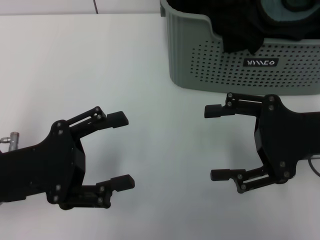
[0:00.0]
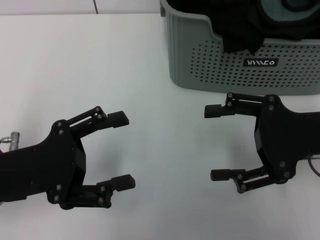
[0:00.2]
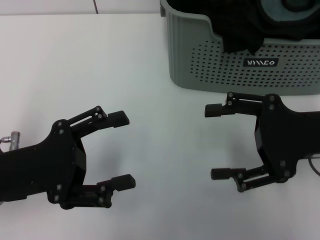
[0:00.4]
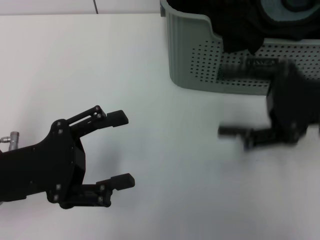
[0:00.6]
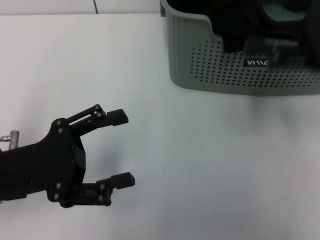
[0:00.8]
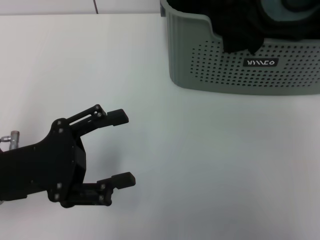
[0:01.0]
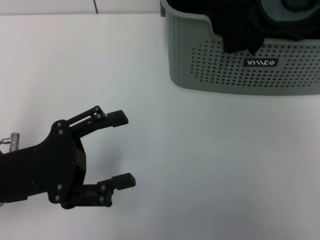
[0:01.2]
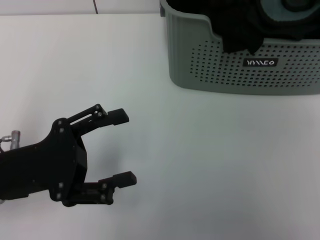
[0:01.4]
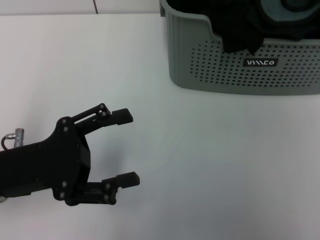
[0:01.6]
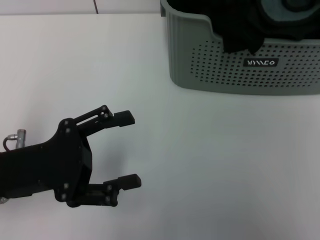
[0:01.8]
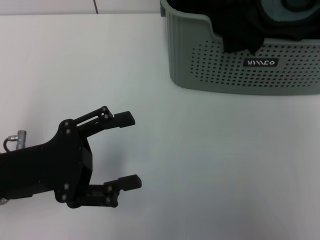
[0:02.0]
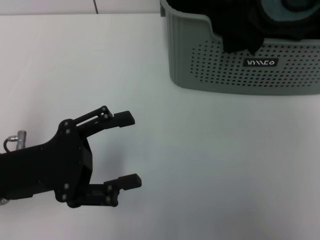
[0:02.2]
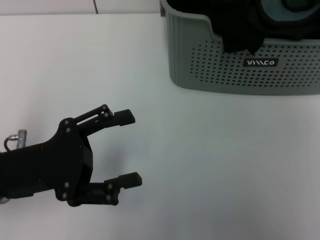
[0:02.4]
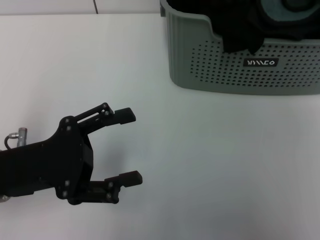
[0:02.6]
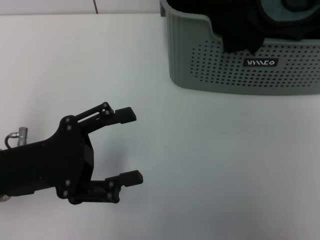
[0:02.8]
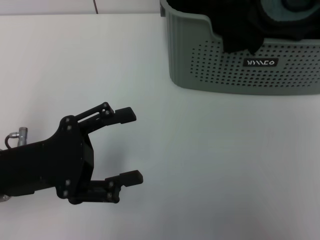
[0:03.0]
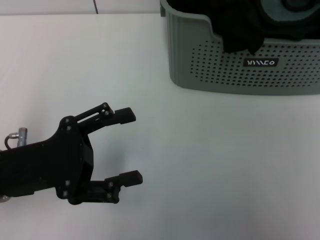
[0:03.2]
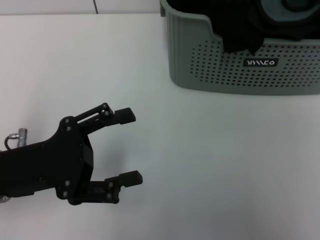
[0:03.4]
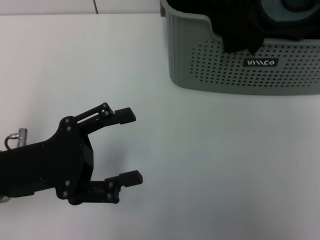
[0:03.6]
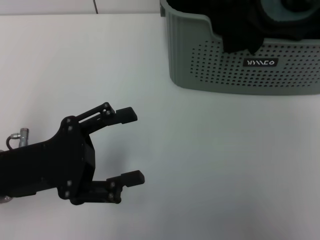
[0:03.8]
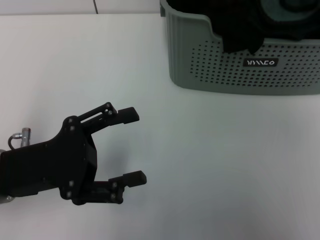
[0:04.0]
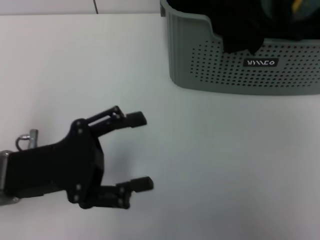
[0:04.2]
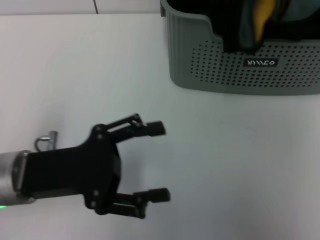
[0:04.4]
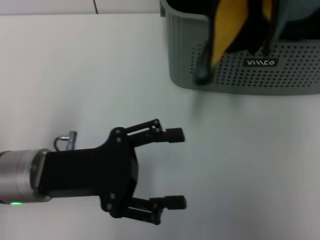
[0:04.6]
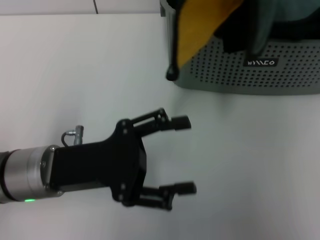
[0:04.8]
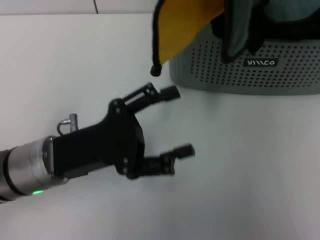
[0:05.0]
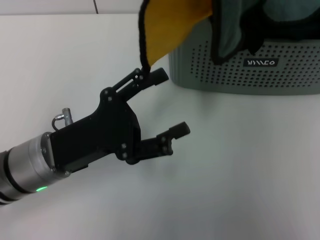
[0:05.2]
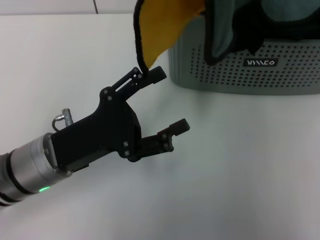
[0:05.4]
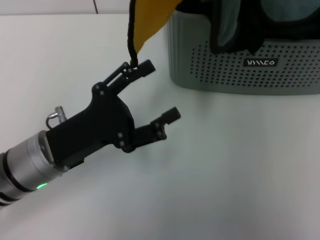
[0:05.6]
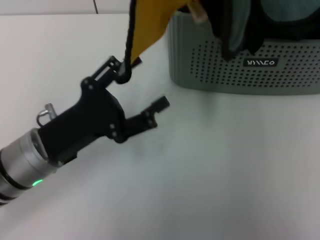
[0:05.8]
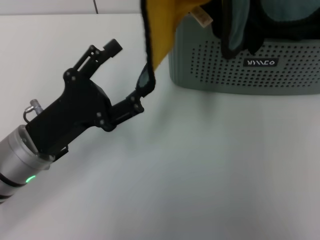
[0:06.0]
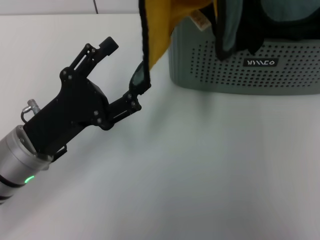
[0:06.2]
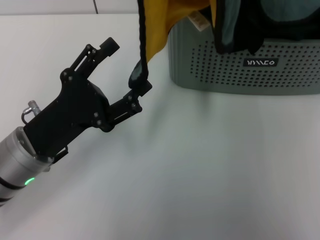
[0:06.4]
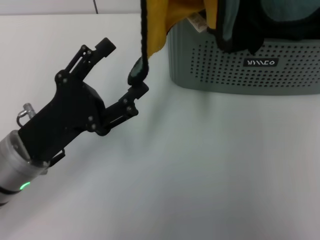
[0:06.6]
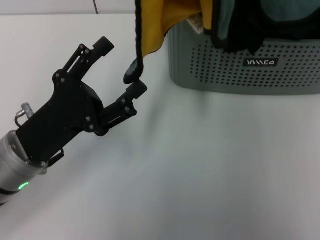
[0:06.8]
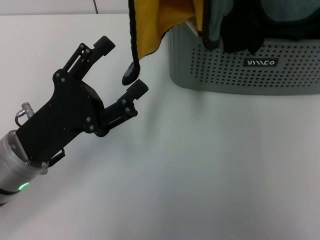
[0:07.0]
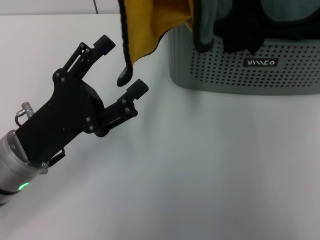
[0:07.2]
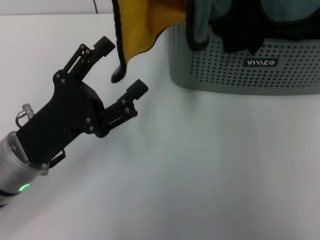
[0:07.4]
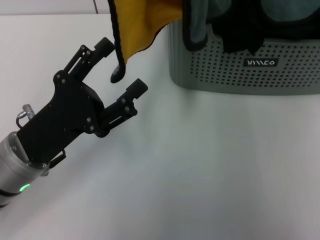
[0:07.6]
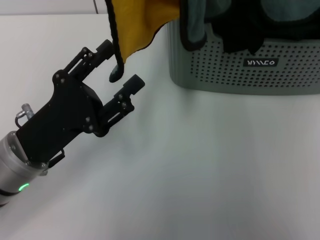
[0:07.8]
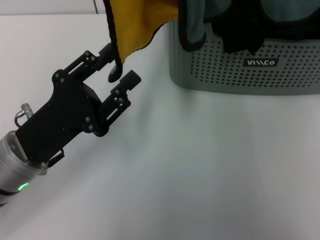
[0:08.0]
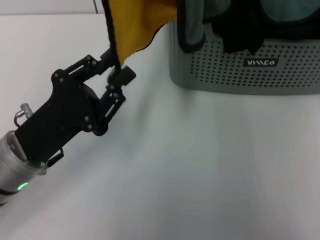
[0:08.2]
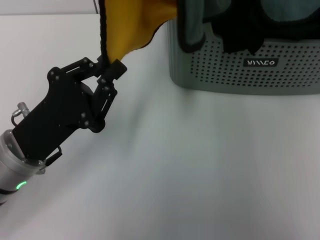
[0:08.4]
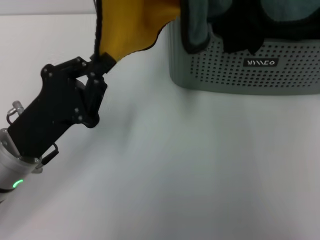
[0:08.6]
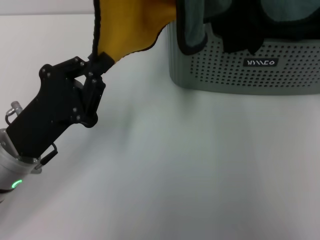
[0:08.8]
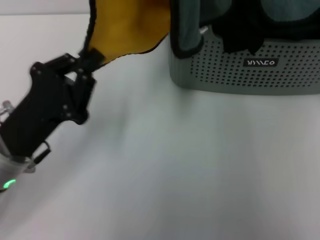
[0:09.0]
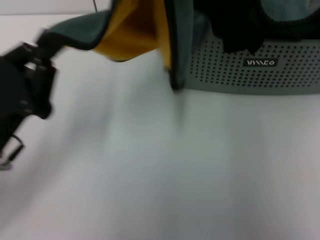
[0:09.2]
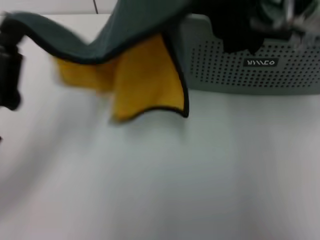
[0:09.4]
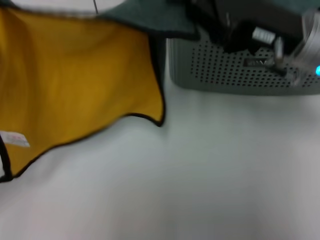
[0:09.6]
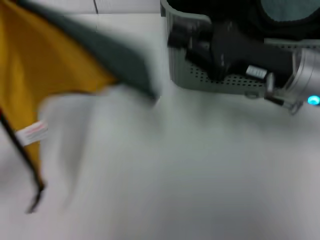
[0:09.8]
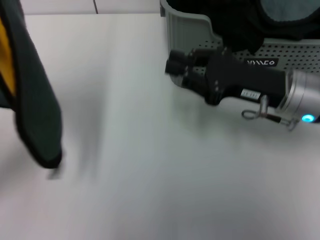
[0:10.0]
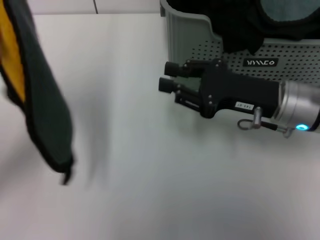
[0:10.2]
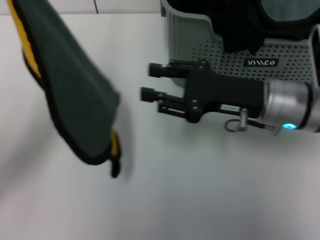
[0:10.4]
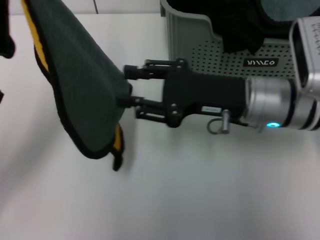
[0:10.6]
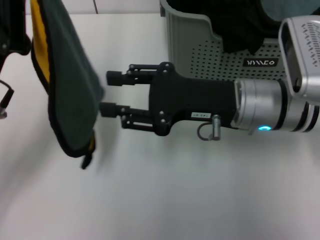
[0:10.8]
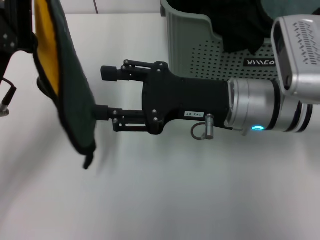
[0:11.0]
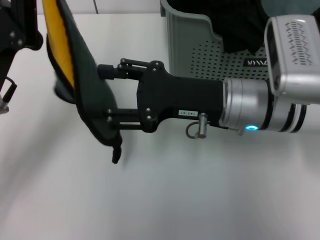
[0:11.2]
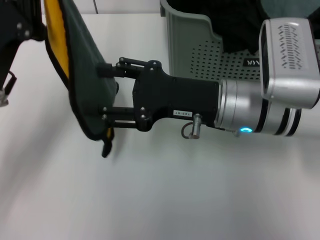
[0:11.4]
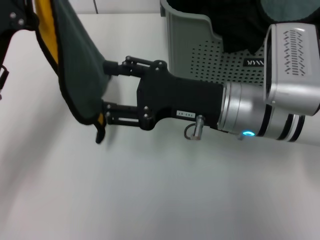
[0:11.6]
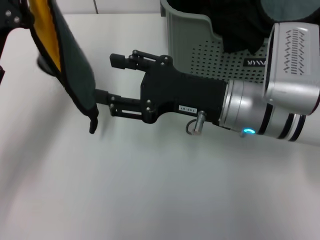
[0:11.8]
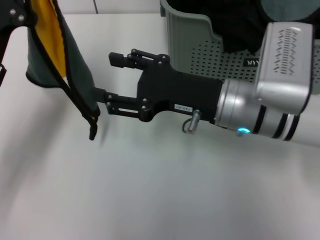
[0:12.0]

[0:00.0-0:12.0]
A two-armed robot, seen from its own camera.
Task of the whole recording: pick up the towel from the storage box and lay it flat on the table.
Step, 0:00.0 to 0:04.0: Pick up a towel with the right gripper.
Step, 0:04.2 to 0:08.4: Spread the towel flat with the right gripper.
0:00.0 to 0:01.6: The right gripper is displaced to the right and upward by some 20 cm.
0:01.6 to 0:03.0: The right gripper shifts about 5 cm forward, and closes up.
0:03.0 to 0:04.4: The right gripper heads to the left, upward and backward, covering roughly 15 cm, and closes.
0:04.4 to 0:06.0: The right gripper travels to the left by approximately 10 cm.
0:06.0 to 0:07.6: The grippers make only small movements.
0:07.6 to 0:09.0: The left gripper closes its fingers.
0:09.0 to 0:10.4: The left gripper goes roughly 5 cm upward. The right gripper heads downward, covering some 15 cm.
0:10.4 to 0:12.0: The right gripper heads to the left, covering approximately 5 cm, and opens.

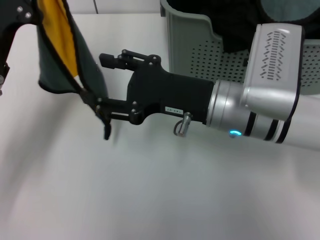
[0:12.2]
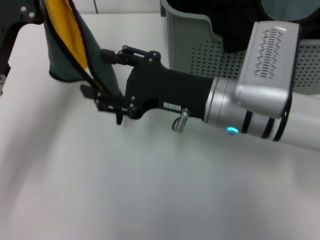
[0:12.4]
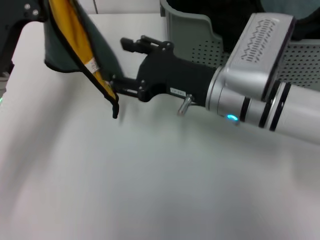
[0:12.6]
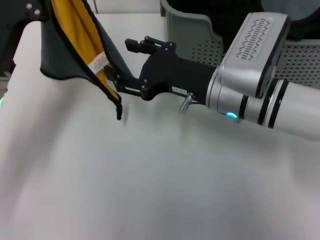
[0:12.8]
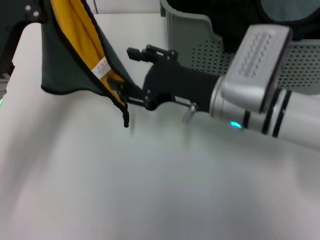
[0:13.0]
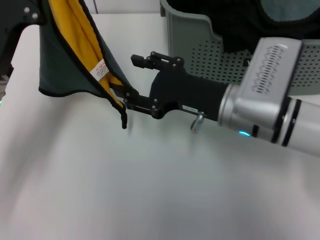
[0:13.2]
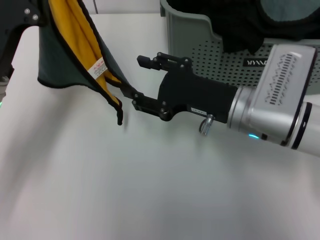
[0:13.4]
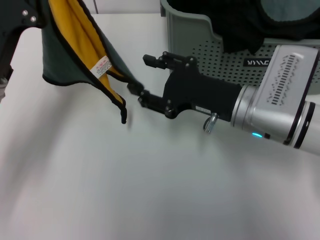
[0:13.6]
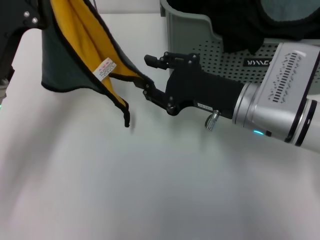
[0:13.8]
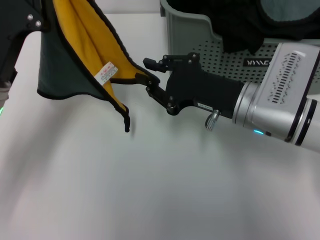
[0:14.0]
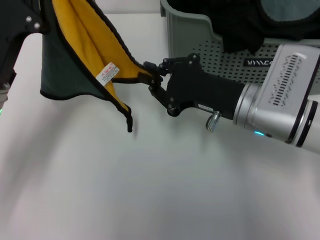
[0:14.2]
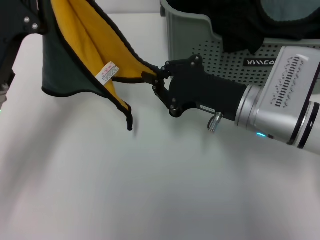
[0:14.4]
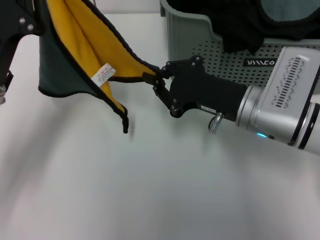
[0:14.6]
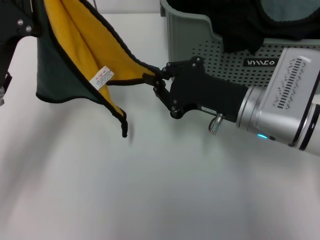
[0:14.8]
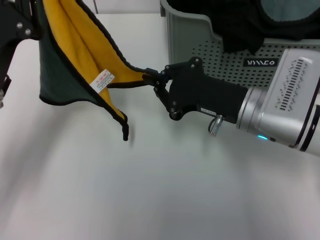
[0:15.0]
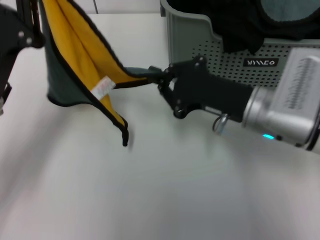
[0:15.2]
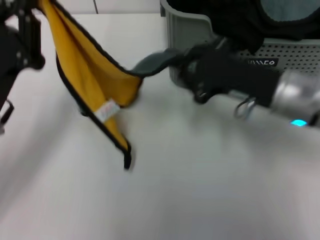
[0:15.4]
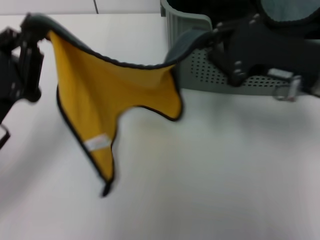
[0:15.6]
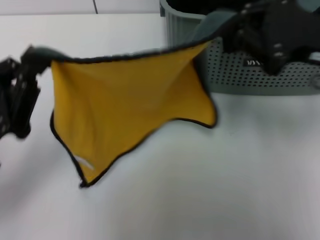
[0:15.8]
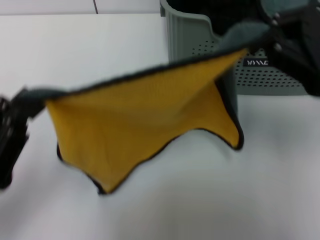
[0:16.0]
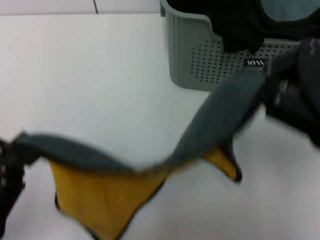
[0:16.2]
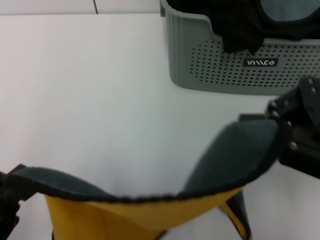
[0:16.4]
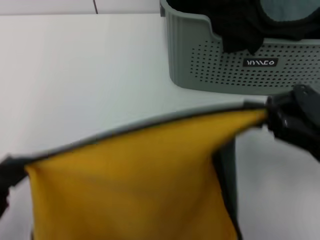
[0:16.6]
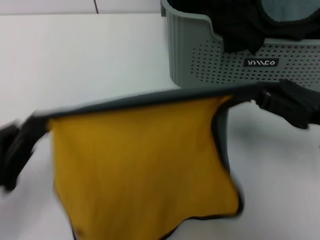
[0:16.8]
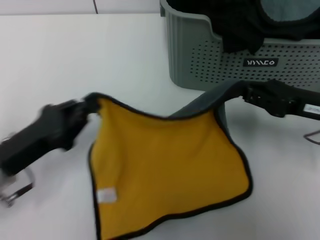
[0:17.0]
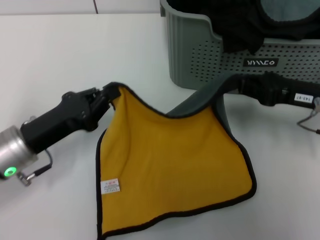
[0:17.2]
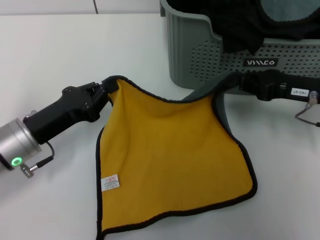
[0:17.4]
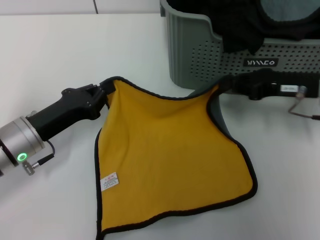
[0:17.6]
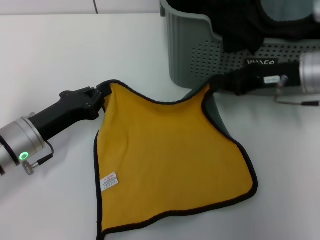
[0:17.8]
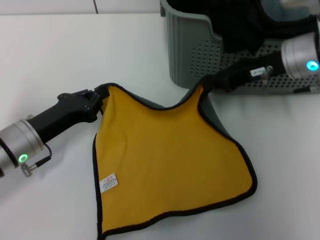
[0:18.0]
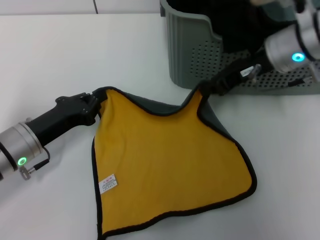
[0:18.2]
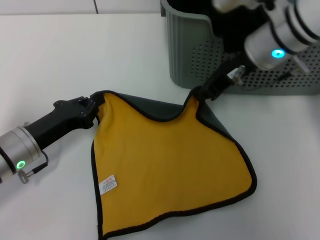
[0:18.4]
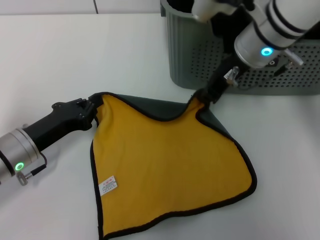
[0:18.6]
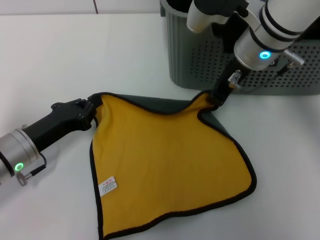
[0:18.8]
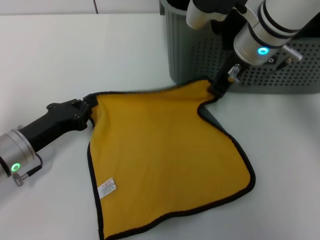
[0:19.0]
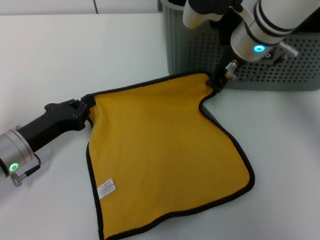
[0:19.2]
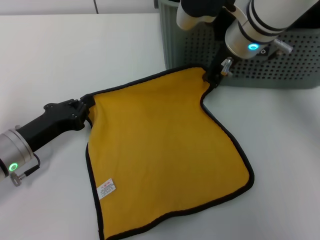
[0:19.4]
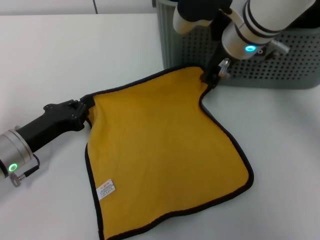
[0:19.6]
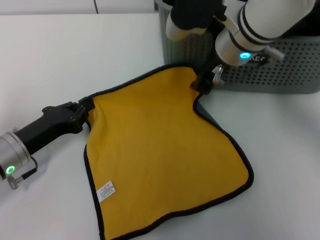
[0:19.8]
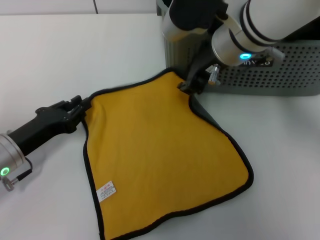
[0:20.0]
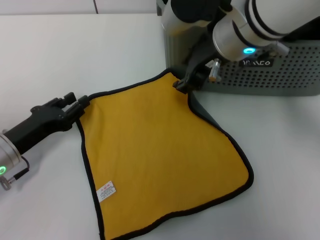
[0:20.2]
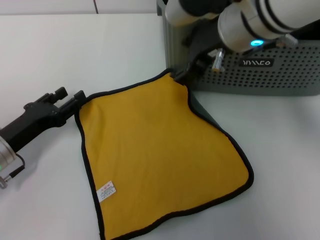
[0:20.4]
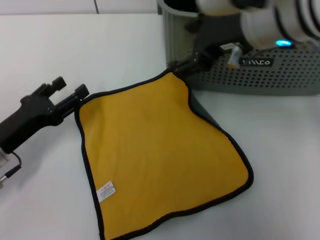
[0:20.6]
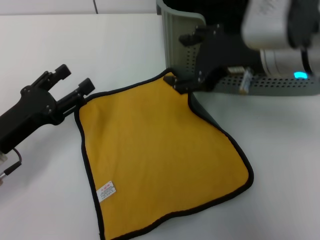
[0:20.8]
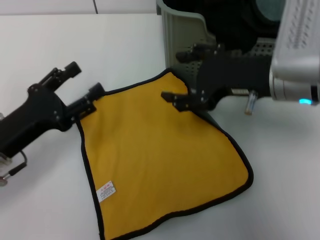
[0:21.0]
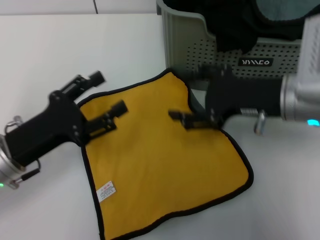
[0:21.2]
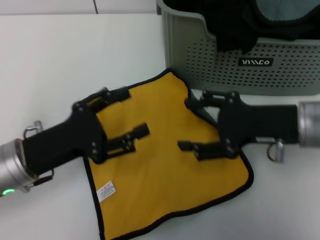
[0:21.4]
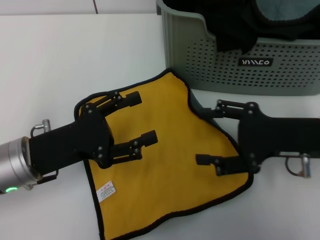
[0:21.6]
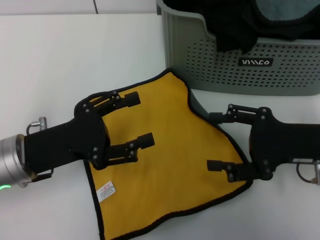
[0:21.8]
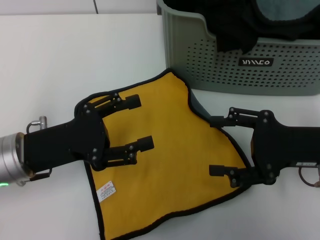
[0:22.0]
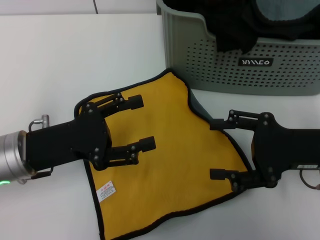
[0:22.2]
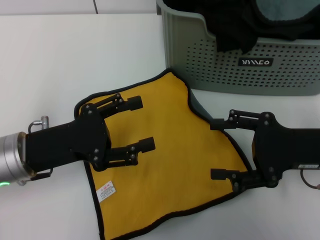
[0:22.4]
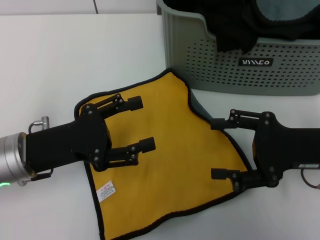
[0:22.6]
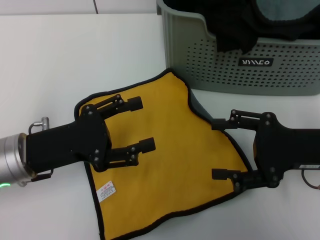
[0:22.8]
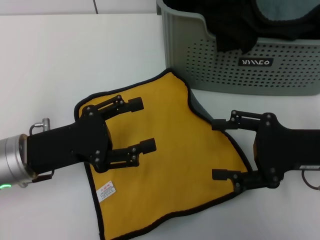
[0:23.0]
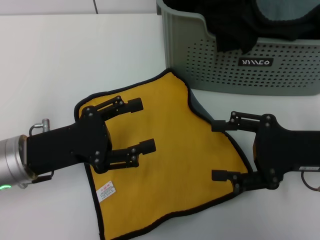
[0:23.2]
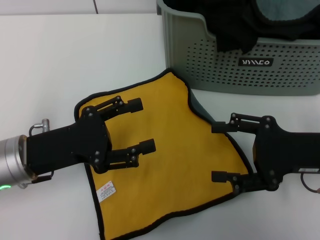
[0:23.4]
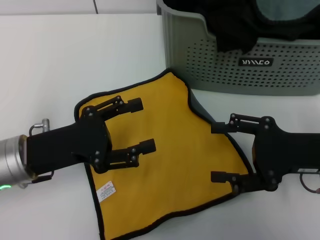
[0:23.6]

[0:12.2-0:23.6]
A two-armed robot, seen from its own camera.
Task of the whole recording: pick up the towel from the storage box and lay it flat on the table.
Step, 0:12.2 to 0:20.0: Spread the towel flat with the left gripper.
0:13.6 to 0:15.0: The right gripper closes up.
0:15.0 to 0:16.4: The right gripper goes approximately 15 cm to the right, upward and backward, while the left gripper travels backward by about 15 cm.
0:16.4 to 0:17.8: The two grippers go some 20 cm forward and downward.
0:17.8 to 0:19.4: The right gripper goes about 15 cm to the left.
0:19.4 to 0:20.8: The right gripper heads backward, covering roughly 10 cm, and opens; the left gripper opens up.
0:20.8 to 0:22.2: The left gripper changes place by about 5 cm; the right gripper moves to the right, downward and backward, about 15 cm.
0:22.2 to 0:23.6: Neither gripper changes place.
